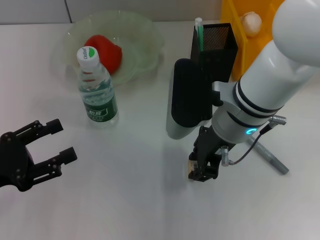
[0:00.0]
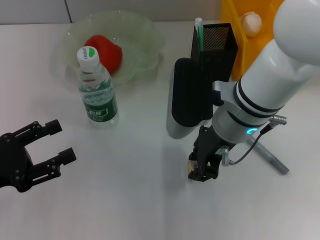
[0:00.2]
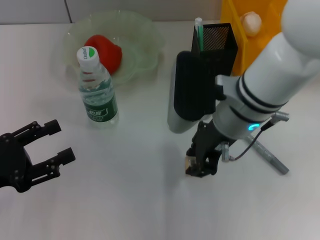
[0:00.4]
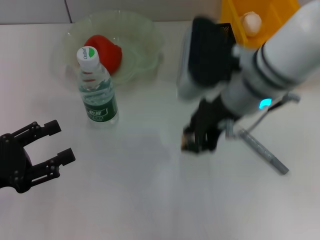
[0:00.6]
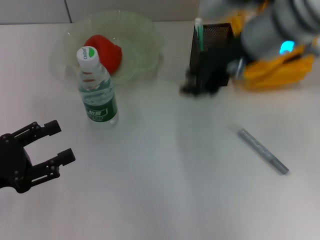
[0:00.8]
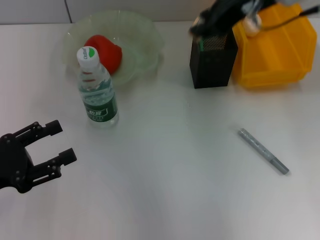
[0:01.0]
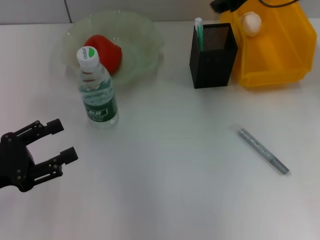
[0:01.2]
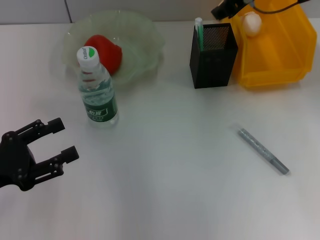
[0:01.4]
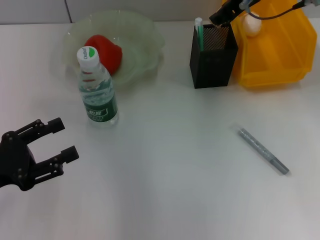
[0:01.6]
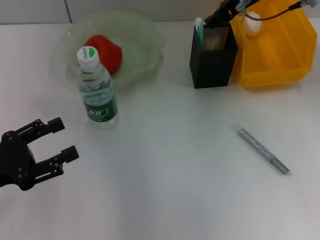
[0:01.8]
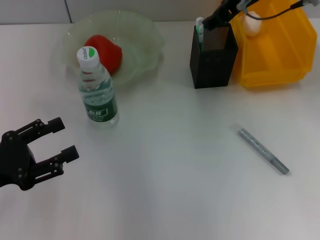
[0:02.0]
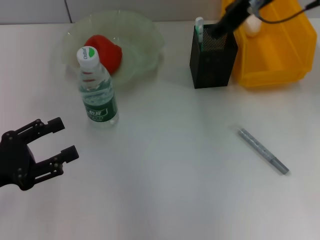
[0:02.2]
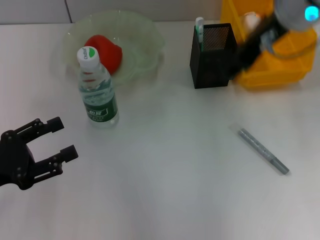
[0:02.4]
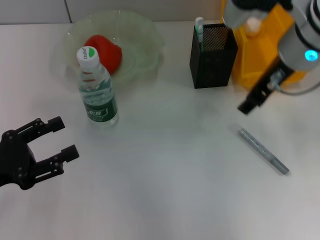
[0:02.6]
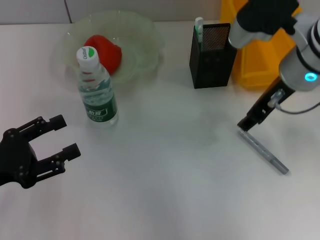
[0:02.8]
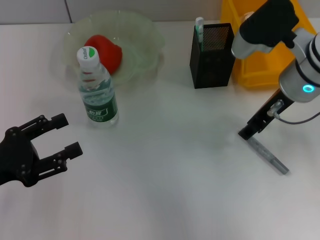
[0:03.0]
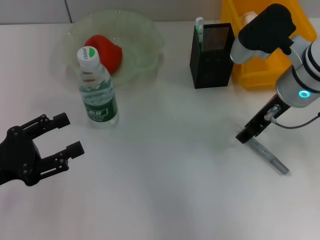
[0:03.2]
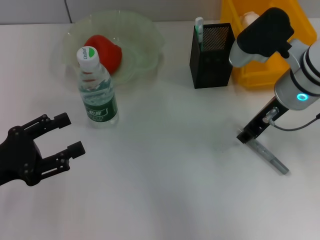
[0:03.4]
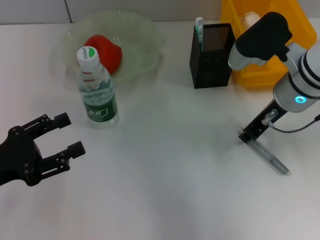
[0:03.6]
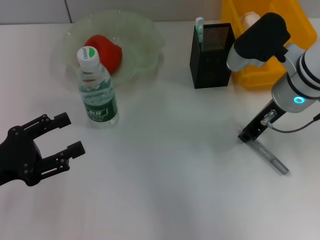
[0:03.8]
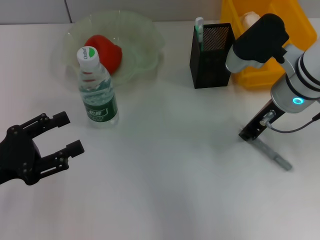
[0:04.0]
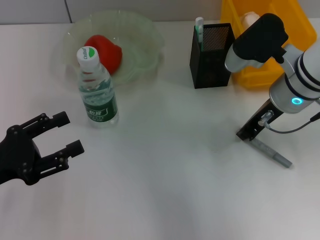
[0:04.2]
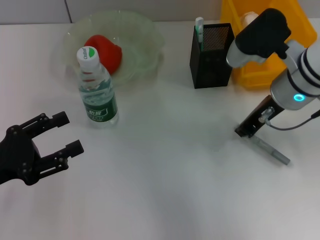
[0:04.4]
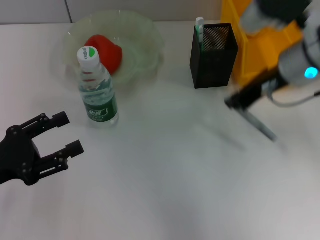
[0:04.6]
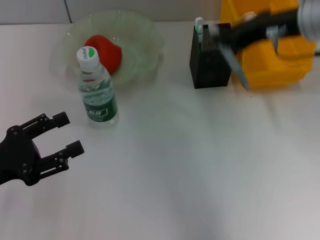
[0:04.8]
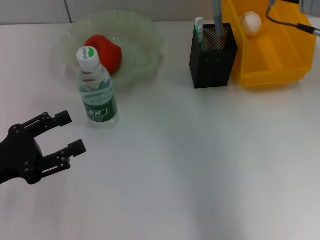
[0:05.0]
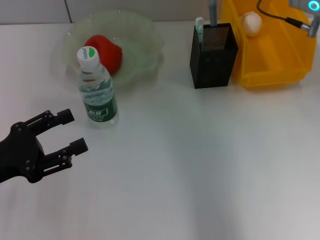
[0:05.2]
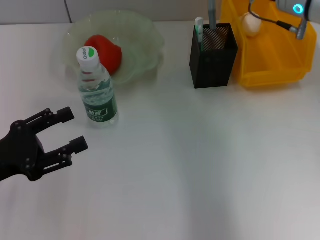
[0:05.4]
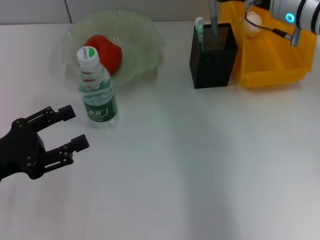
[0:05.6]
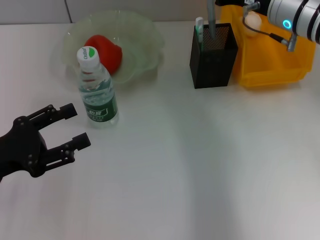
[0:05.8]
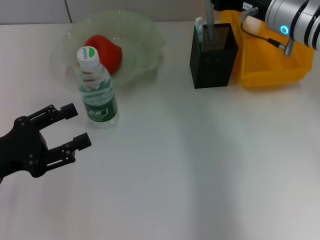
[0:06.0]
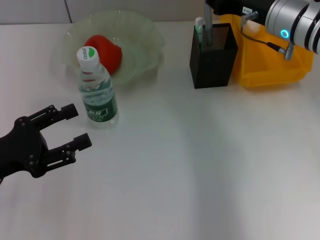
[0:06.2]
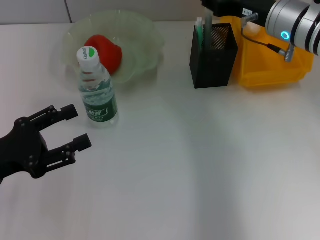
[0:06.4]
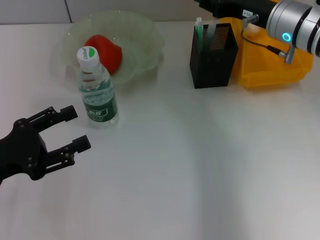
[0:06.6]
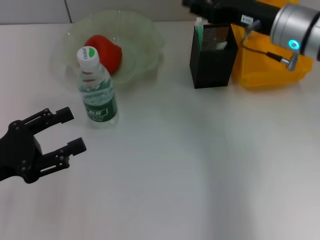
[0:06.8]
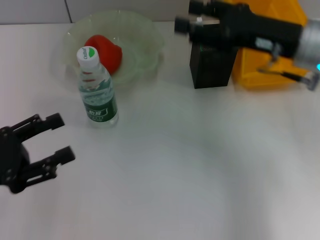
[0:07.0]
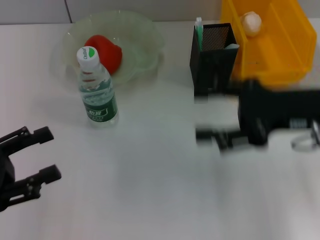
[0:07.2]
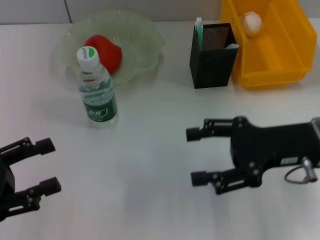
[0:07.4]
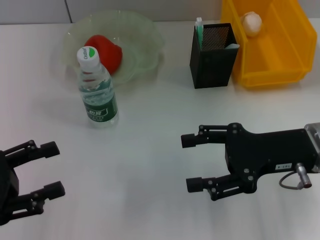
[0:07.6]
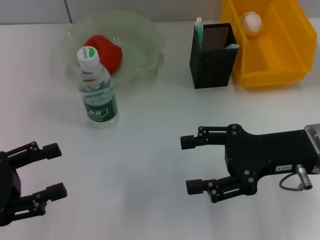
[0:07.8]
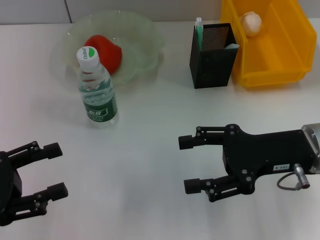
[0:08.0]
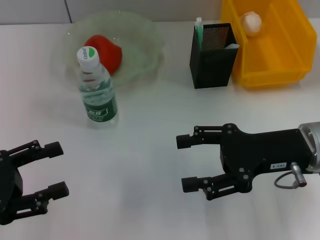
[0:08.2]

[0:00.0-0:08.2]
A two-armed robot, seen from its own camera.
Step, 0:00.2 to 0:01.8: Put the eraser into the pen holder with the right hand.
Step, 0:02.2 to 0:04.0: Grab the gray glue with the right hand.
Step, 0:04.2 to 0:06.4: Place the gray glue into the pen holder with the right hand.
0:00.0 to 0:01.6: The right gripper shifts roughly 15 cm forward, upward and to the right.
0:01.6 to 0:03.2: The right gripper shifts roughly 10 cm downward and backward, and opens.
0:03.2 to 0:05.0: The right gripper is displaced upward by some 5 cm, and closes its fingers.
0:05.0 to 0:06.6: The right gripper shifts roughly 5 cm downward, and opens up.
0:06.6 to 0:08.2: The right gripper moves backward, about 15 cm, and opens up.
